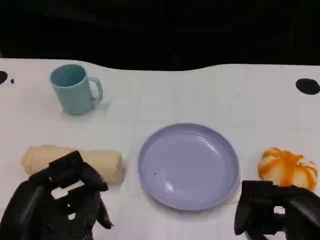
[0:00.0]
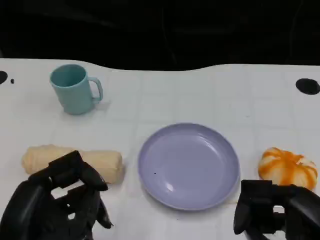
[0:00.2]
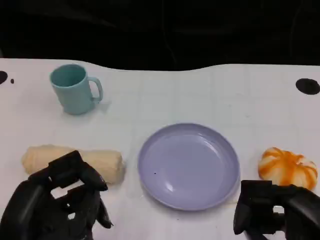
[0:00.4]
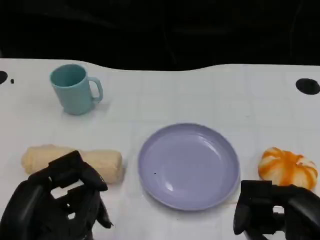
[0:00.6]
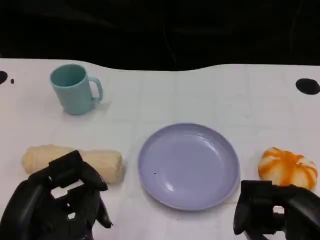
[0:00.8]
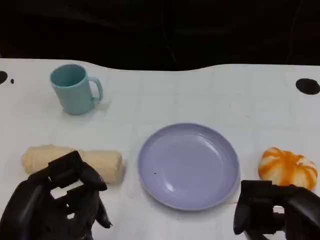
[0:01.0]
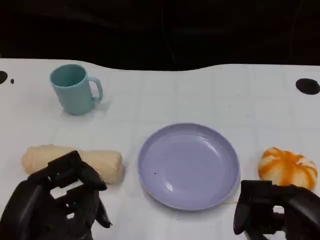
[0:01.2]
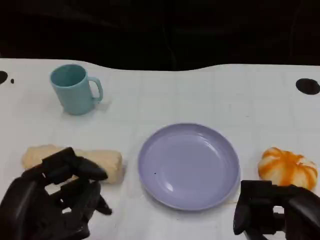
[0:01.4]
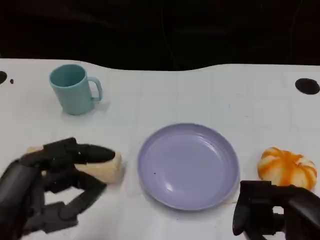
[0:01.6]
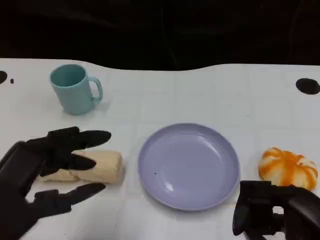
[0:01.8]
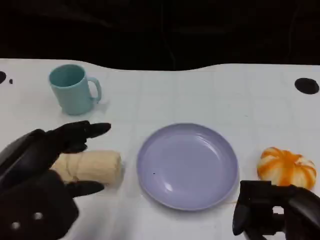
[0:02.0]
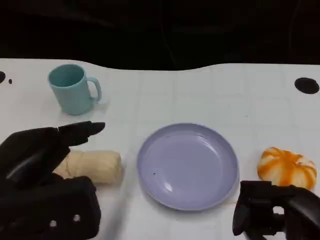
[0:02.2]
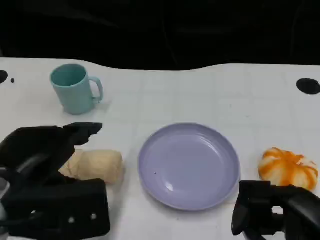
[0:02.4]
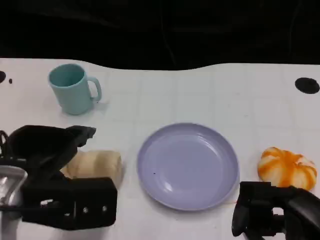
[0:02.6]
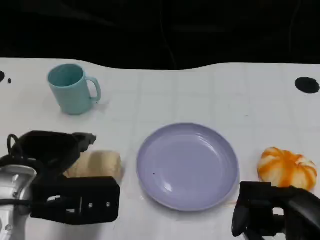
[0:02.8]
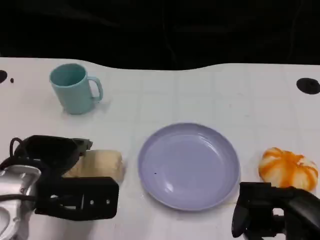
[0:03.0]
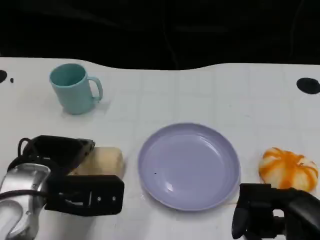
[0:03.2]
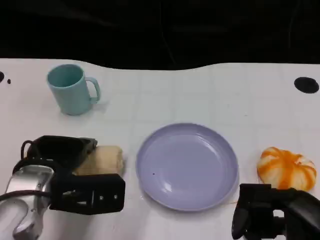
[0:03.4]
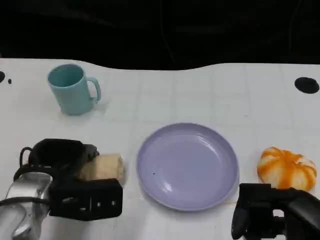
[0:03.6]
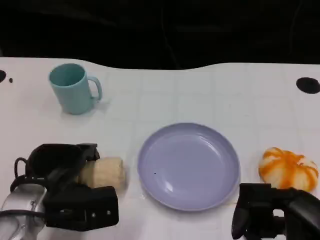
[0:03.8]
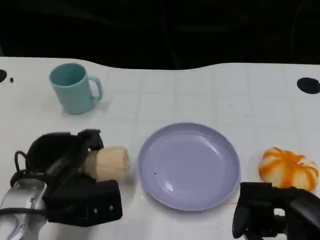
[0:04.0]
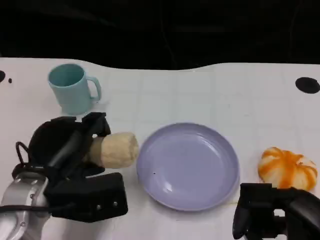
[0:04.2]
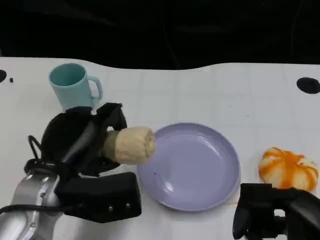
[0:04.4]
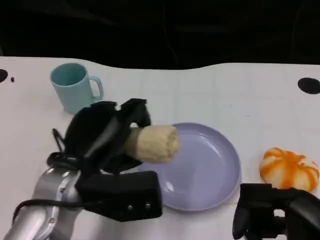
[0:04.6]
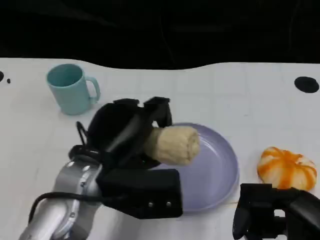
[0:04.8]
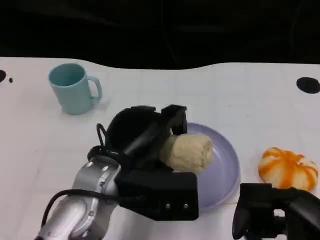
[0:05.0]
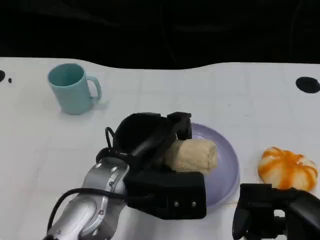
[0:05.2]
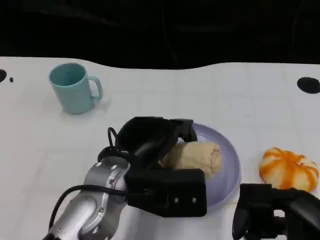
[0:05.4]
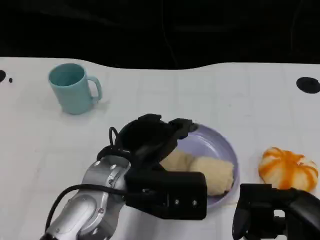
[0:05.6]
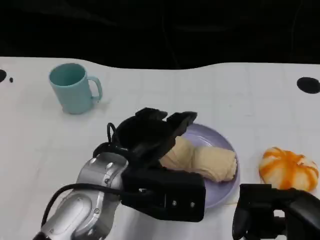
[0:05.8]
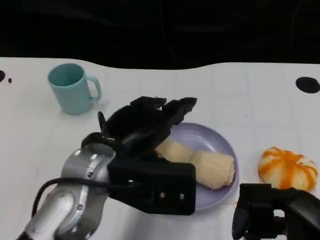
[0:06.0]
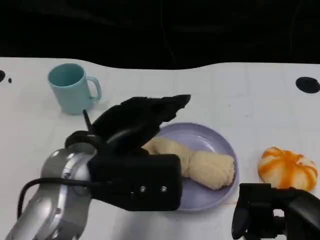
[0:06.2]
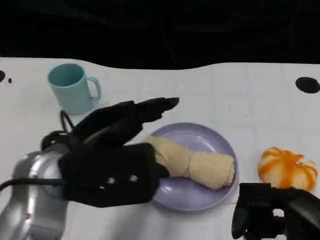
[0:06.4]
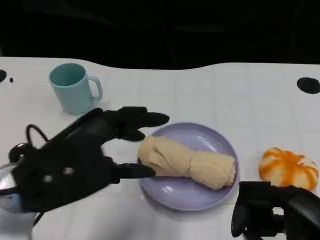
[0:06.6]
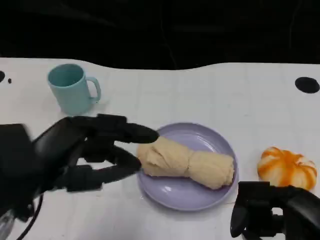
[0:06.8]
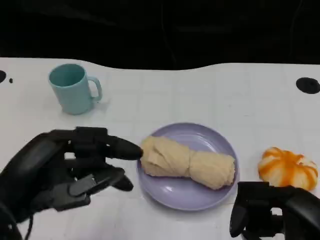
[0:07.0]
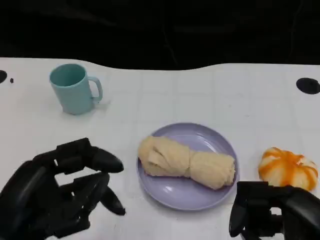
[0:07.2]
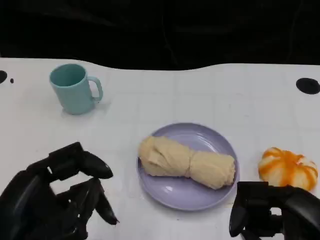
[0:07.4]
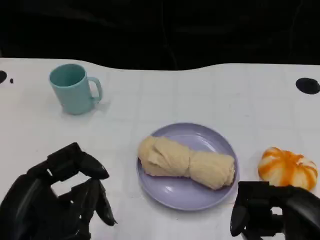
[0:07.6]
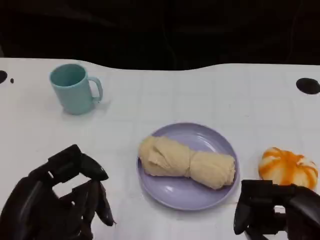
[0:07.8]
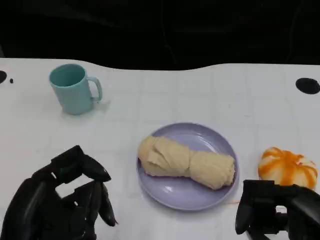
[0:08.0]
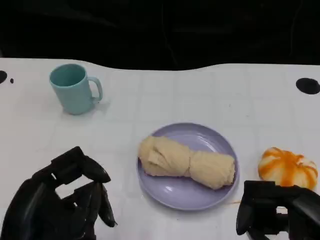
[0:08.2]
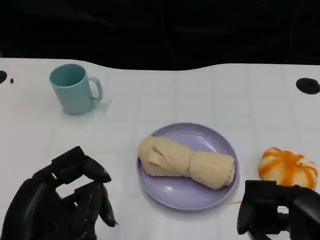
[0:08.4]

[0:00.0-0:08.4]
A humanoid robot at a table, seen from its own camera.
Task of the whole recording: Grasp the towel on the left side of the plate with the left hand and place it into the plate.
0:00.0 to 0:01.4: The two hands keep their place.
0:01.4 to 0:02.8: The left hand shifts approximately 10 cm forward.
0:04.2 to 0:05.6: The left hand is displaced to the right by roughly 10 cm.
0:05.6 to 0:07.0: The left hand is displaced to the left and backward by roughly 15 cm.
